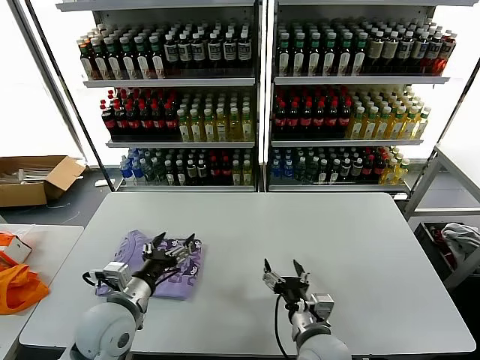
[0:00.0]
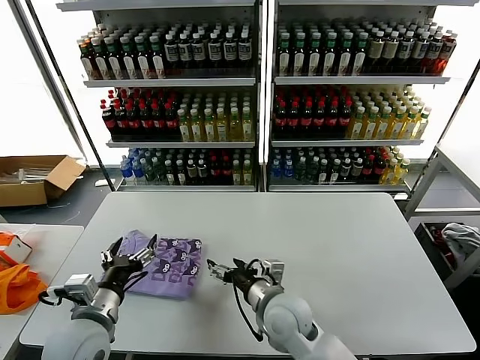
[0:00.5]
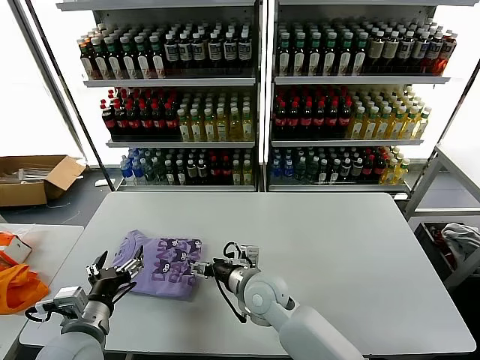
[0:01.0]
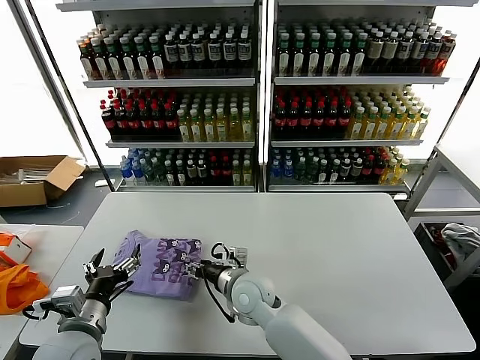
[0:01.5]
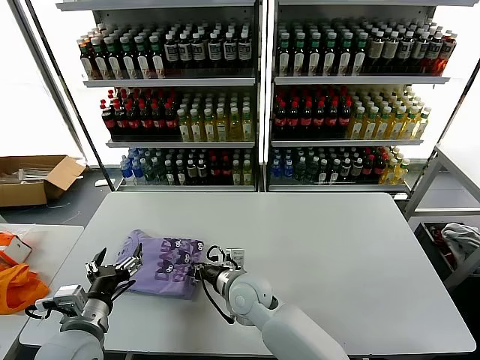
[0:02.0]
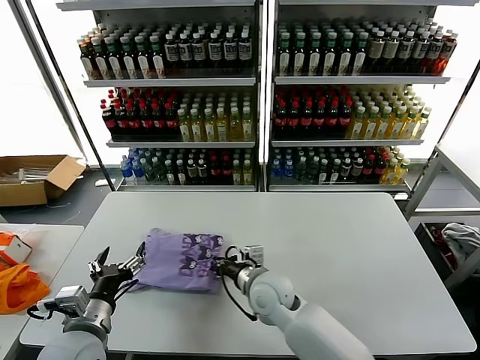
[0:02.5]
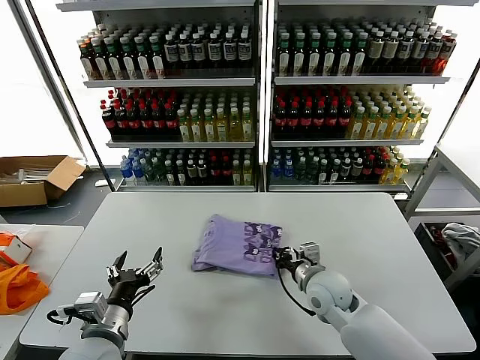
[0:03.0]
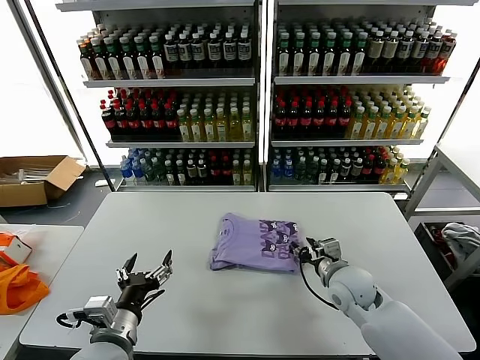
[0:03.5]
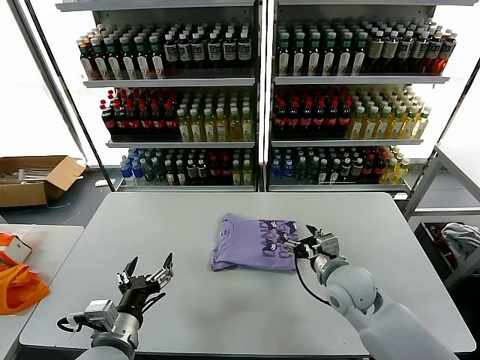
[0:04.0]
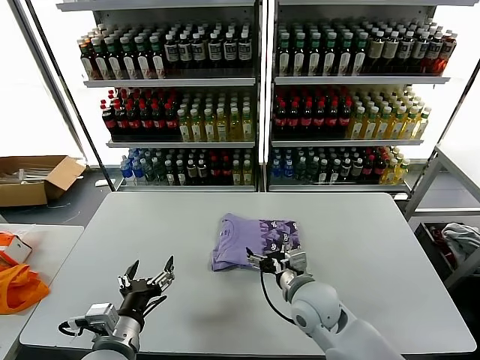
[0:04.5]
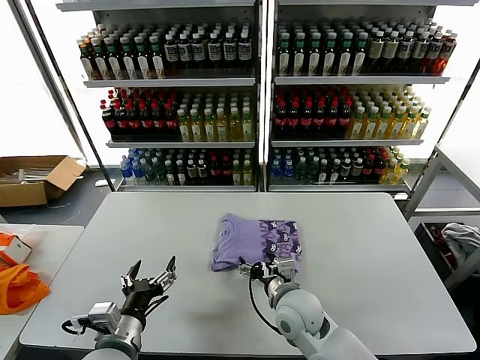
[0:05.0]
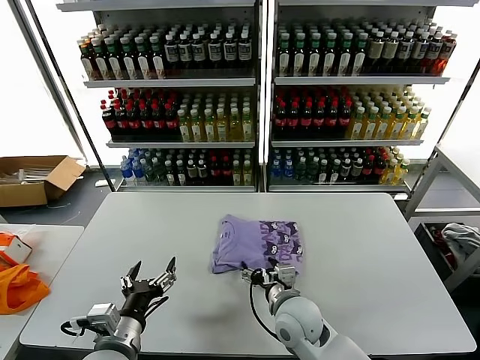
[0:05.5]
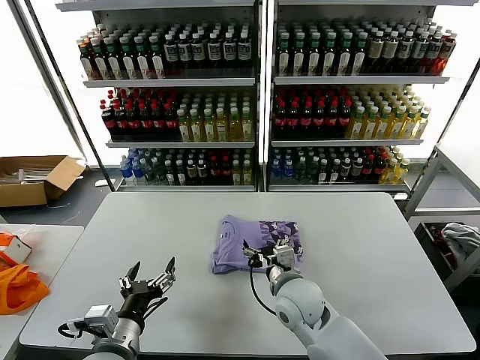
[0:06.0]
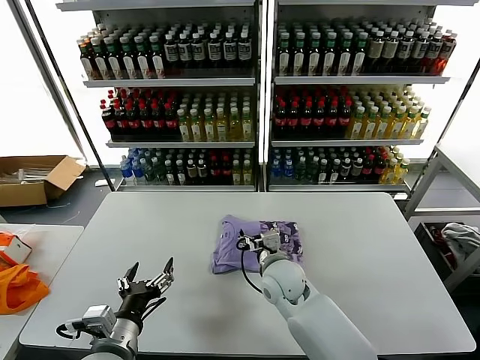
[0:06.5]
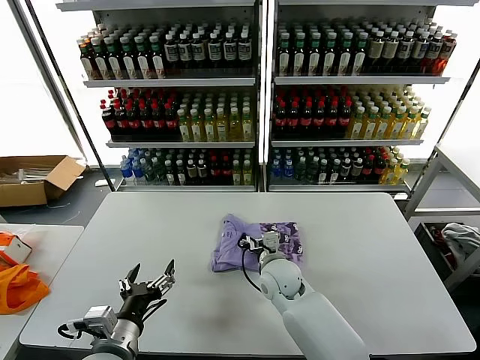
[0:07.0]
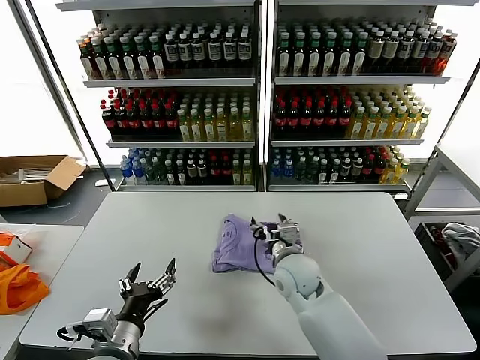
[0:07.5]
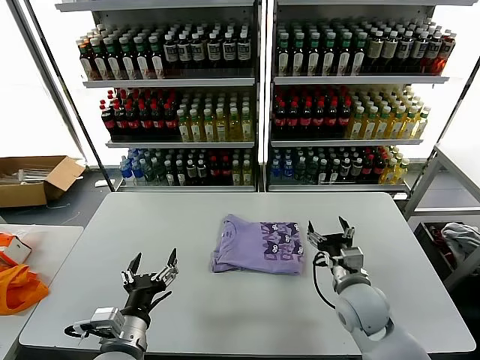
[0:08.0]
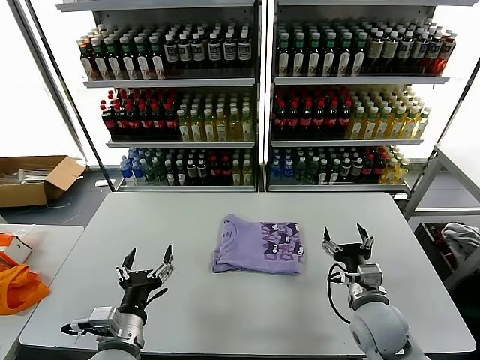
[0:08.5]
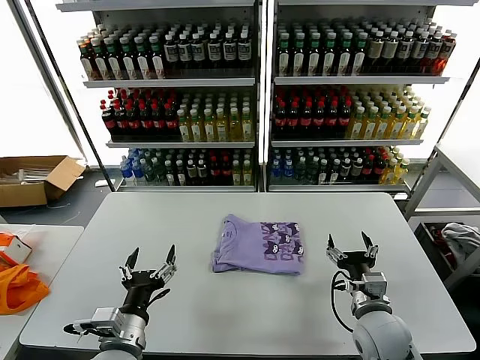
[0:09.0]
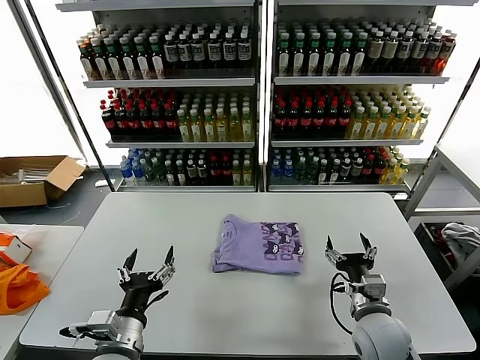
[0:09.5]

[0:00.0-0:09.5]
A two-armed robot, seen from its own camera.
Task of the whole recording: fold and organize the clothes.
Step, 0:00.0 to 0:07.0: Drag the clothes to the center of the table.
0:00.0 to 0:02.0: The right gripper travels to the left and forward by about 20 cm, and closes its fingers. Meanwhile the left gripper is displaced backward by approximately 5 cm.
0:02.0 to 0:04.0: The right gripper is displaced to the right by about 20 cm, and opens its fingers. The left gripper travels to the right by roughly 5 cm.
0:04.0 to 0:05.5: The right gripper moves to the left and backward, about 15 cm.
0:05.5 to 0:07.5: The right gripper goes some 10 cm forward.
0:07.5 to 0:09.5: The right gripper moves to the right and backward, some 20 cm.
